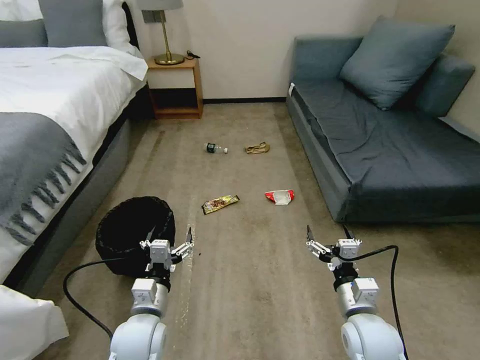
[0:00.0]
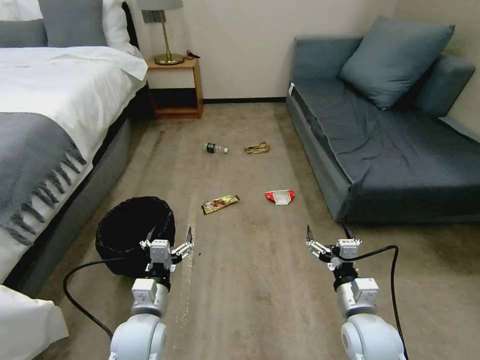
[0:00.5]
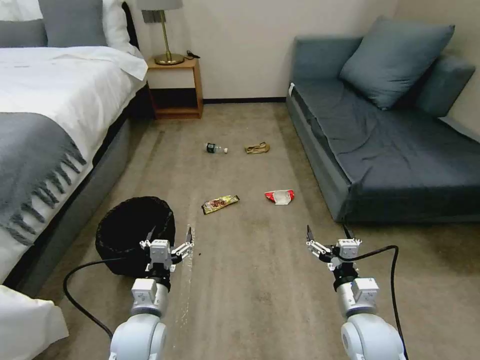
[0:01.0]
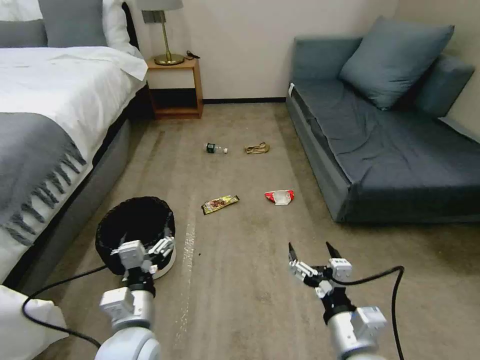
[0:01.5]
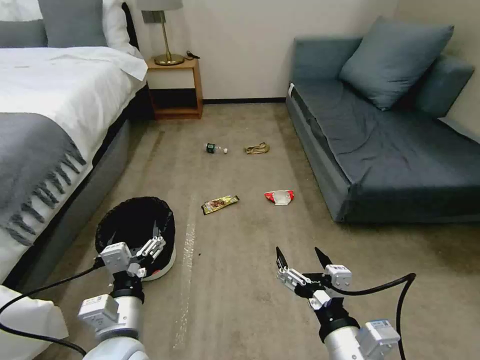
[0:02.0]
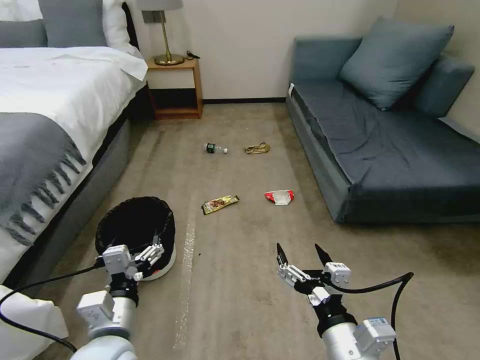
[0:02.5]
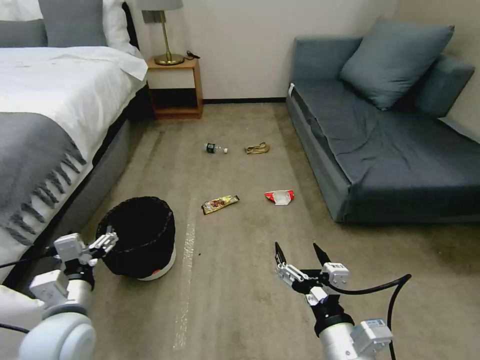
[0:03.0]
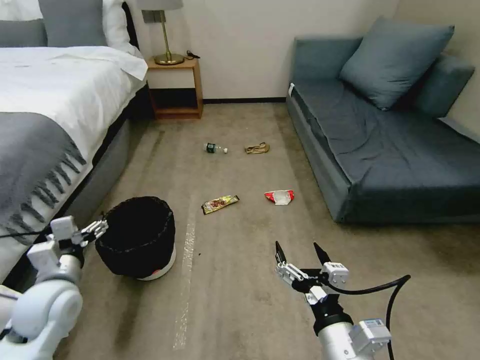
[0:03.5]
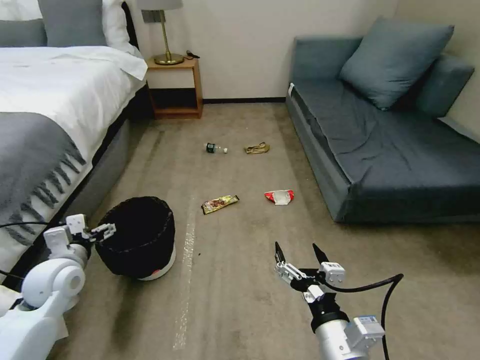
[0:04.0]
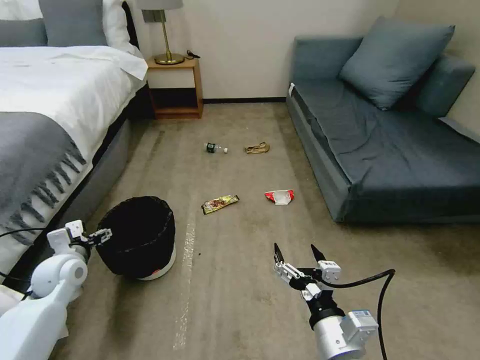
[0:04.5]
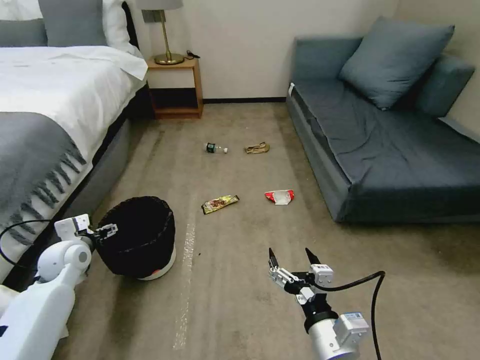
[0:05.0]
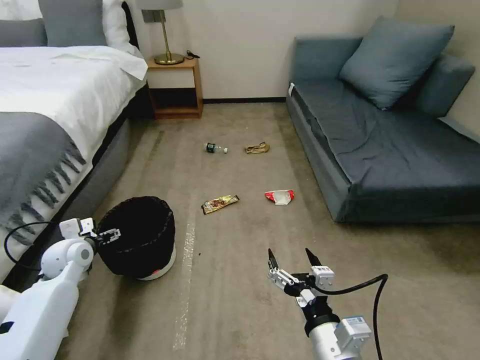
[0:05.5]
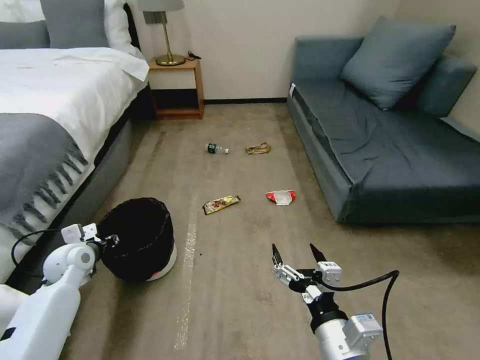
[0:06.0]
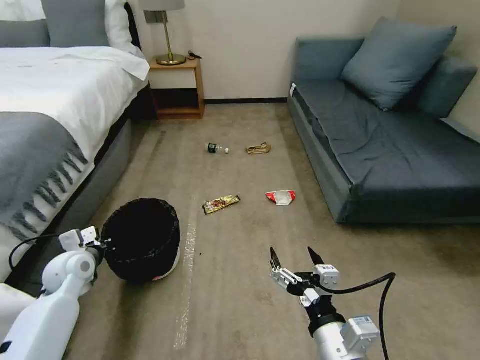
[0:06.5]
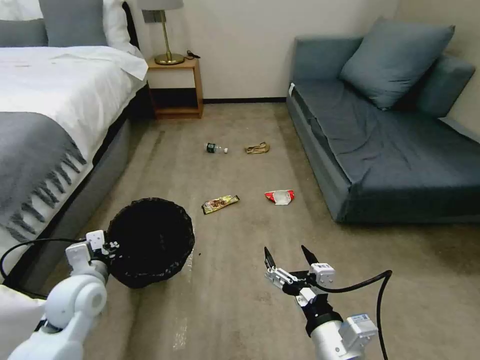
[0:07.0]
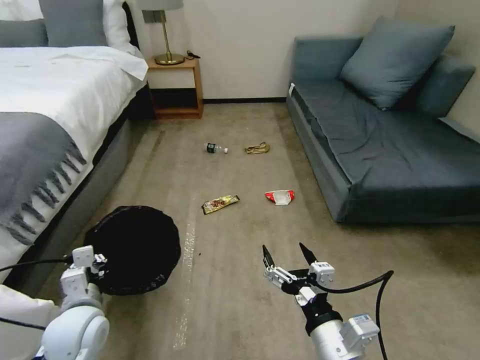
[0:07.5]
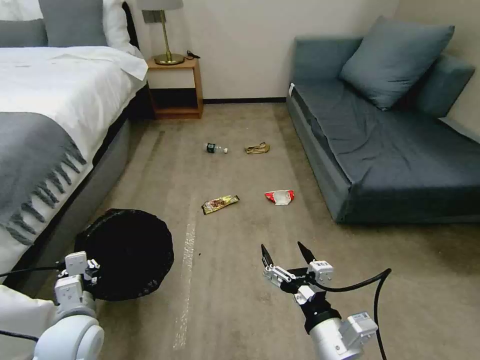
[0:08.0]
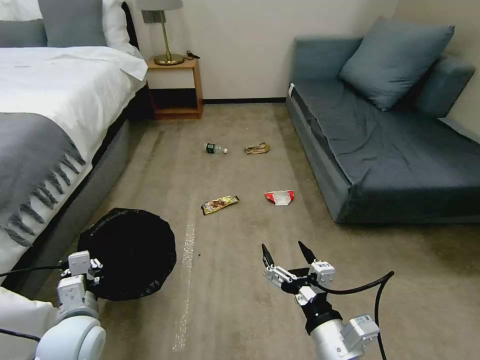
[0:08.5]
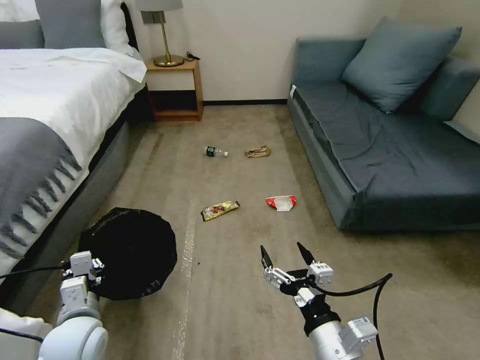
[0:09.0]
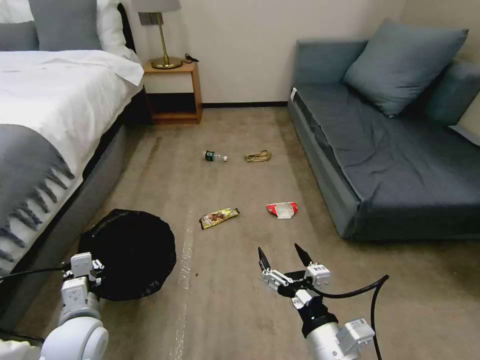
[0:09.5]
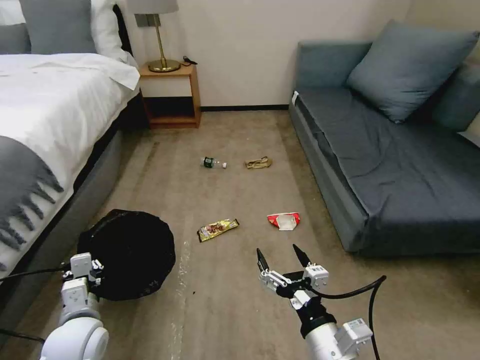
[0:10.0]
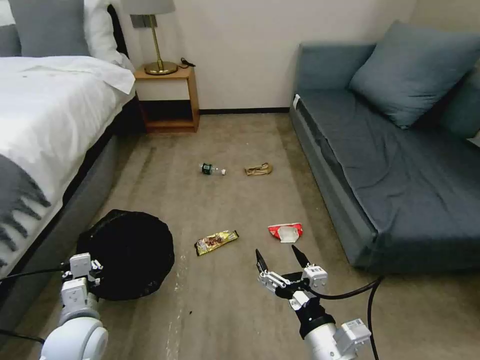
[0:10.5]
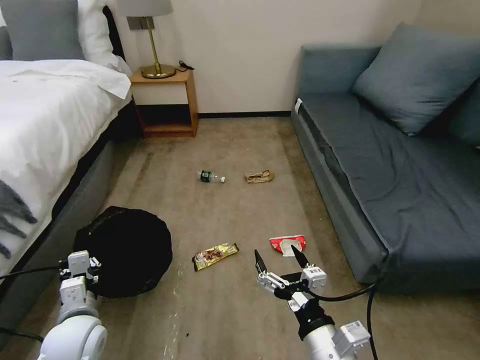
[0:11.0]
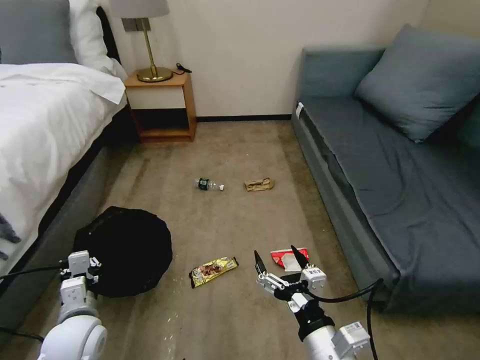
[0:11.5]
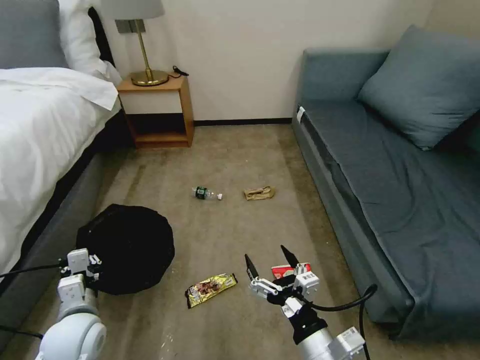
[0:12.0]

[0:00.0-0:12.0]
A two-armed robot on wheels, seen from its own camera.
Task of the whole recording: Pick up the trash bin, then pick up the garbage on the floor and place it into the trash bin.
2.0 to 4.0 s: The left gripper heads to the left and forward, covering some 25 cm.
4.0 to 6.0 s: The left gripper moves forward and downward, some 10 cm, and closes its fingers.
6.0 to 8.0 s: The left gripper shifts approximately 20 cm backward and to the right, and closes up.

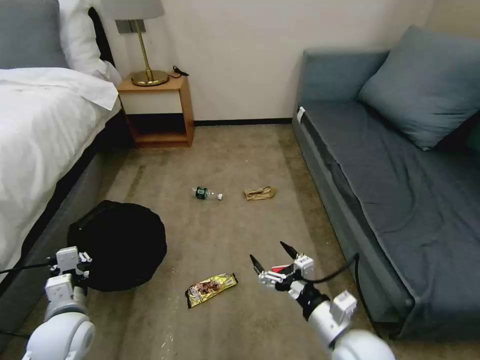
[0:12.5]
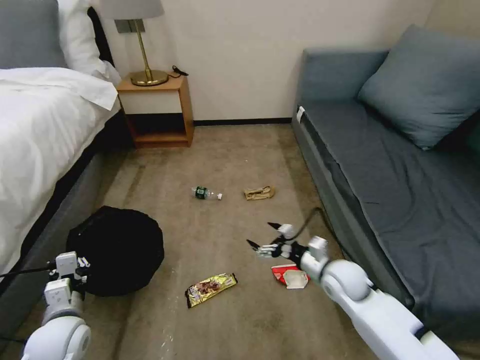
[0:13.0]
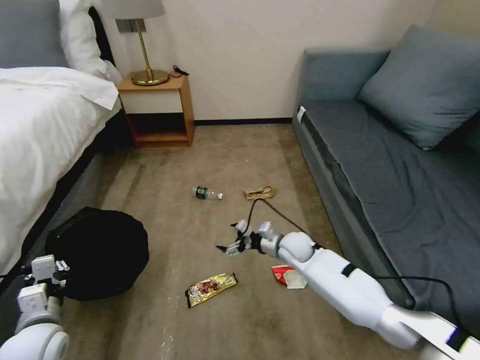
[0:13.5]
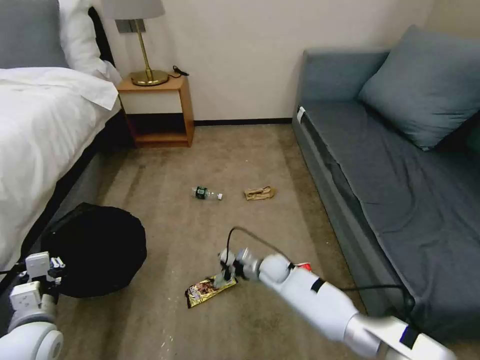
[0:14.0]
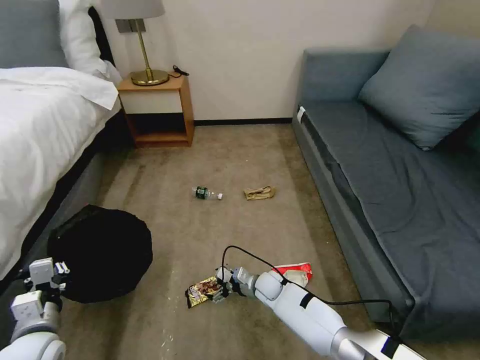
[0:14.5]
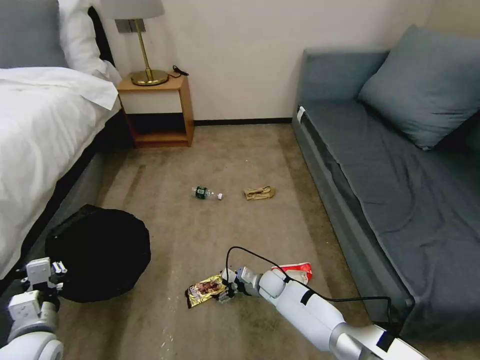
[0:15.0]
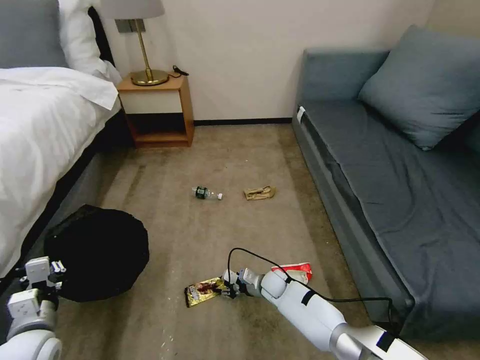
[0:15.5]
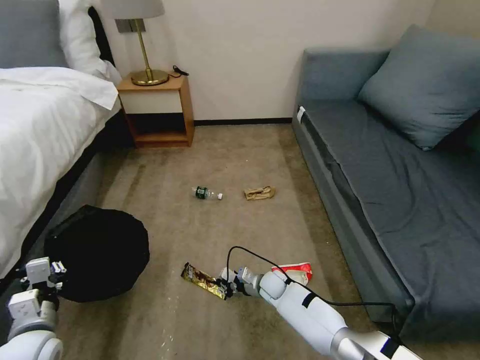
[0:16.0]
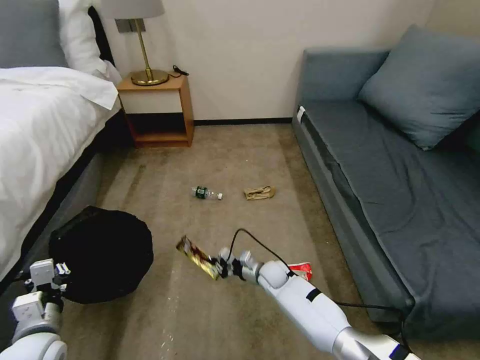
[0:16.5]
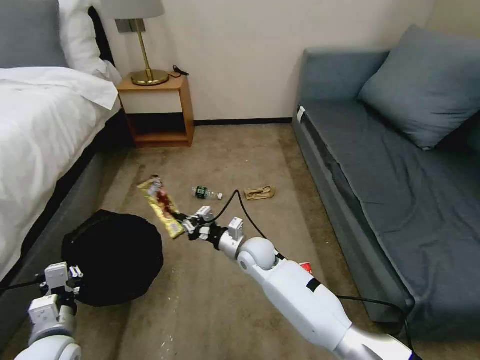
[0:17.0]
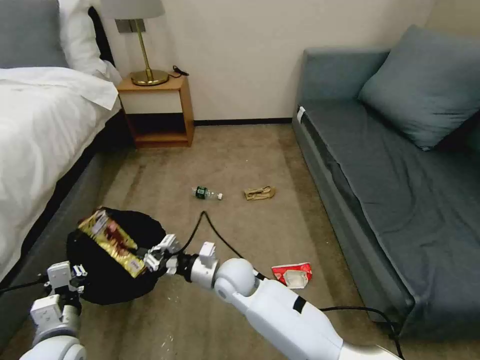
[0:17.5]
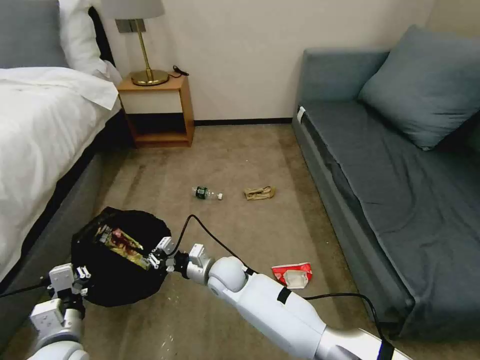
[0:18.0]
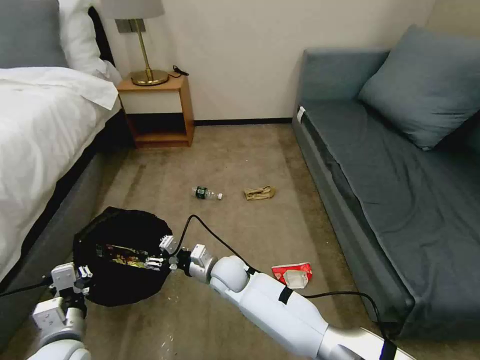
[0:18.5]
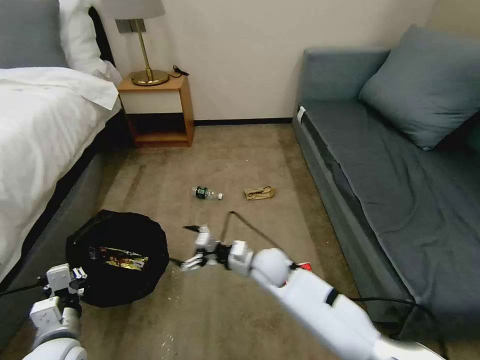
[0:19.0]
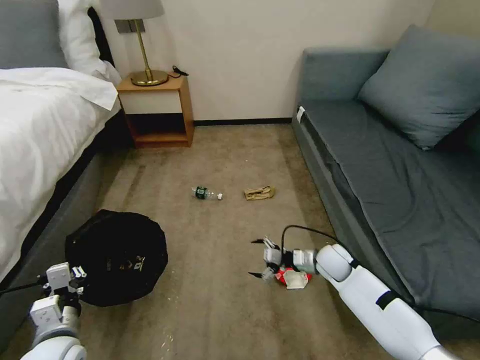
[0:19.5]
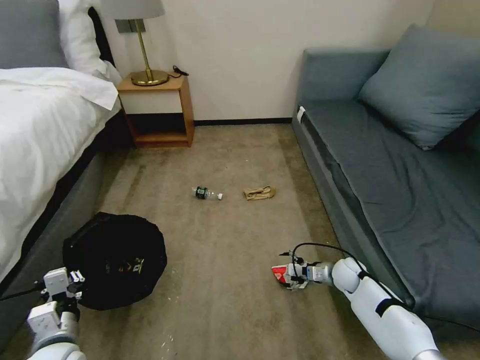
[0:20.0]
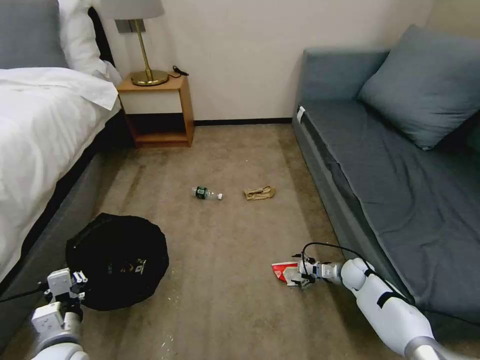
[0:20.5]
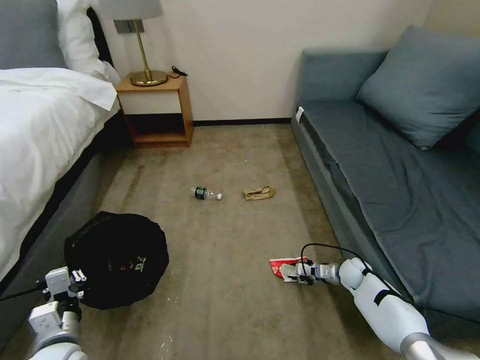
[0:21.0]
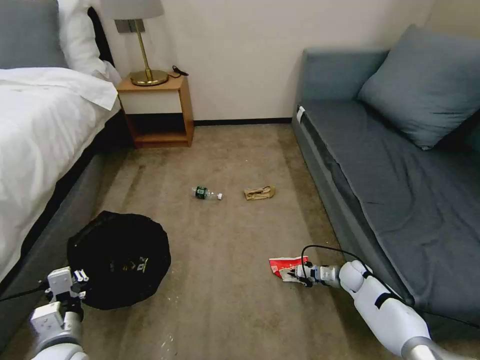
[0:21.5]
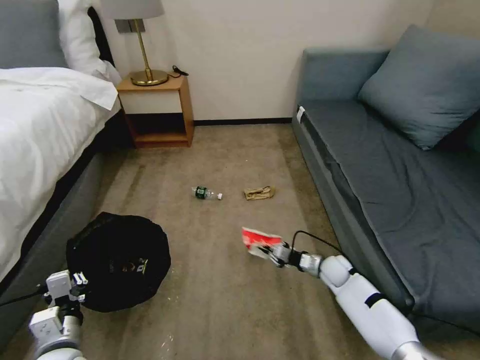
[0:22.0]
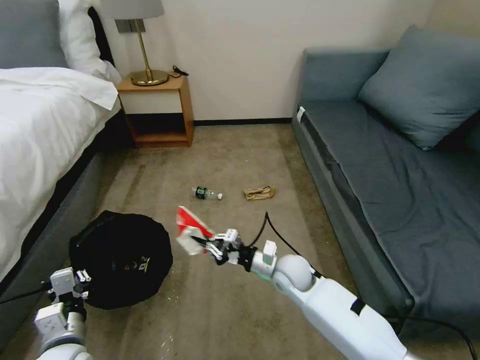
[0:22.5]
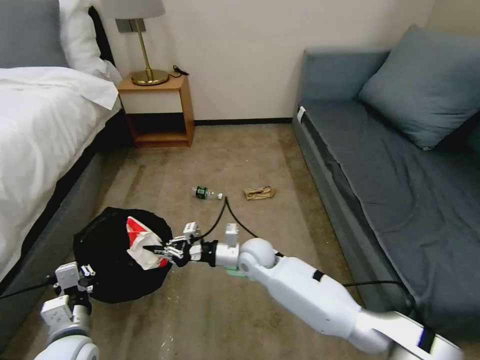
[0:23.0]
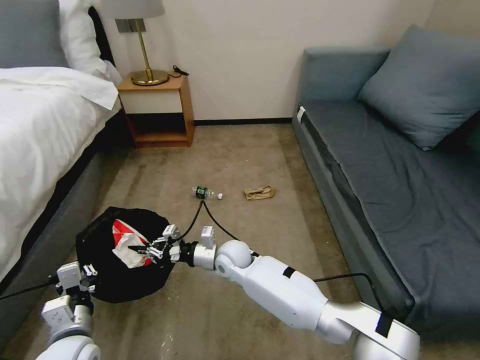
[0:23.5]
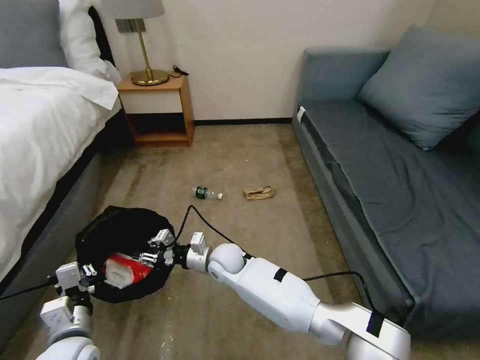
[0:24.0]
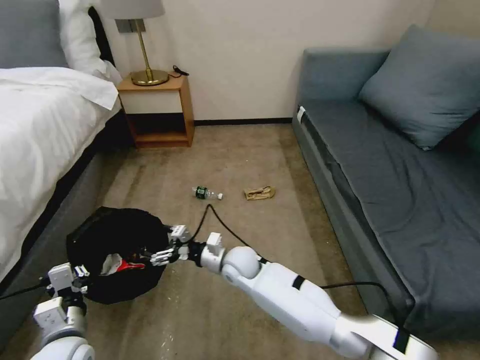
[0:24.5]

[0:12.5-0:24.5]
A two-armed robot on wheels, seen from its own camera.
Task of the whole recording: Pick up the trash bin, then pick up the garbage on the floor and place it into the trash bin.
12.5 to 14.5 s: The left gripper changes place by roughly 5 cm; the right gripper moves downward, forward and to the left, roughly 30 cm.
14.5 to 16.5 s: The right gripper closes.
16.5 to 18.5 s: The right gripper is displaced to the left and upward by approximately 20 cm, and opens up, while the left gripper shifts approximately 5 cm to the right.
18.5 to 20.5 s: The right gripper is displaced to the right by about 40 cm, and opens.
20.5 to 22.5 s: The right gripper goes approximately 25 cm to the left and upward, and closes its fingers.
22.5 to 24.5 s: The right gripper is displaced to the left by some 15 cm, and opens up.

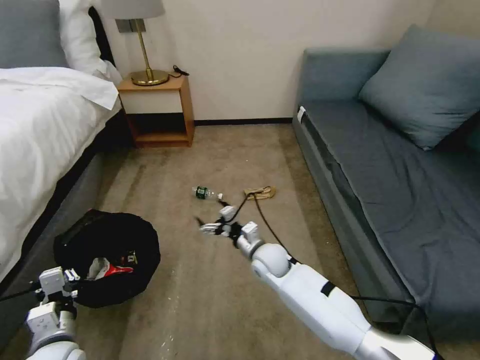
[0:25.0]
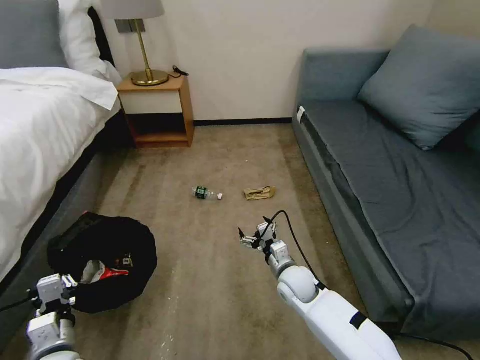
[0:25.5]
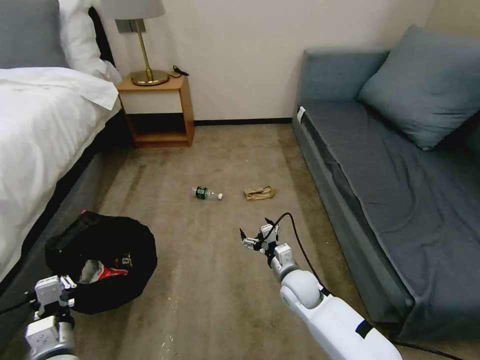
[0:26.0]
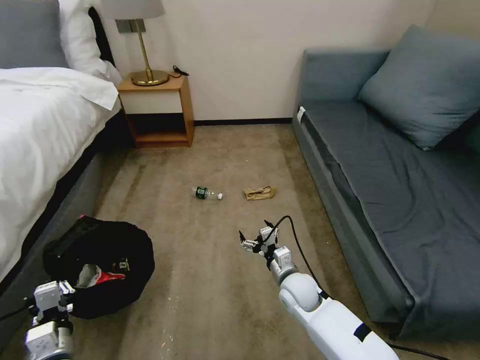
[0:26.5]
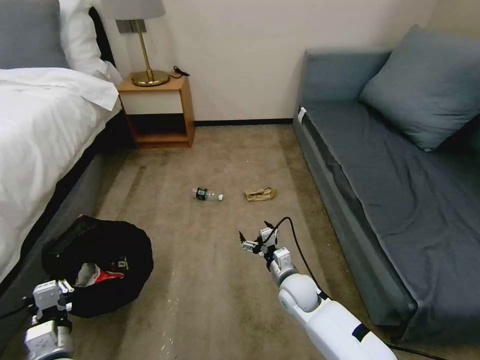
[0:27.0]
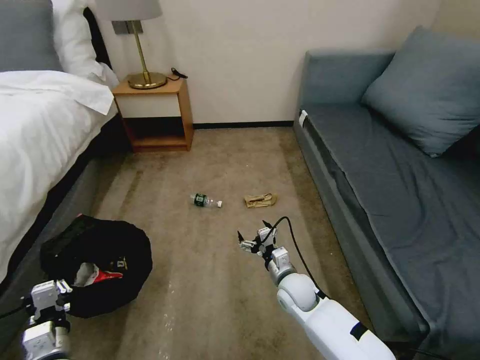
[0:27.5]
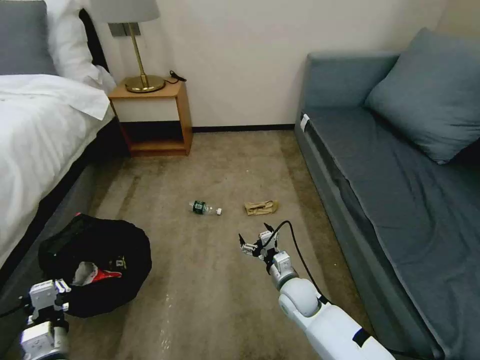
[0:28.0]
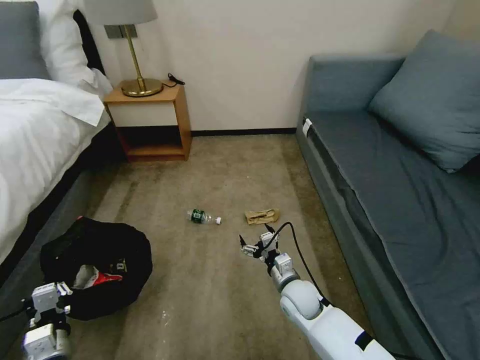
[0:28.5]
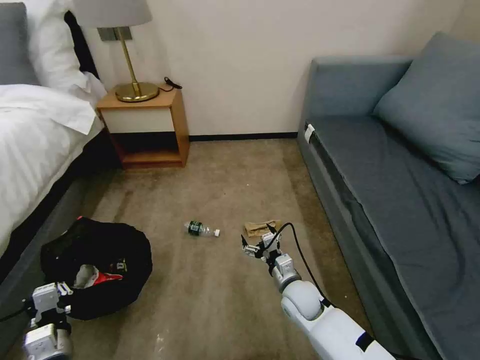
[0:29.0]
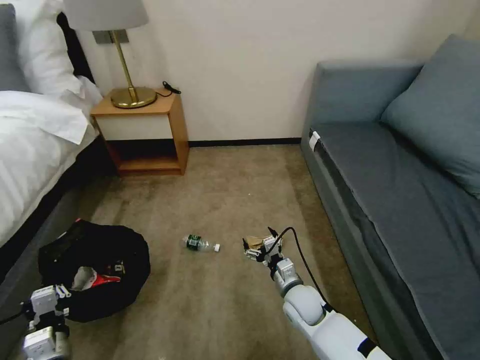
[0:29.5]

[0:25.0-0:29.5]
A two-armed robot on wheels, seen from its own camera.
Task of the whole recording: Pick up the trash bin, then pick up the garbage on the floor and place it into the trash bin.
25.0 to 27.0 s: The right gripper goes about 10 cm to the right and backward.
